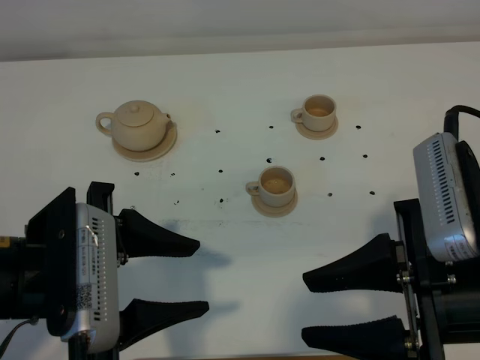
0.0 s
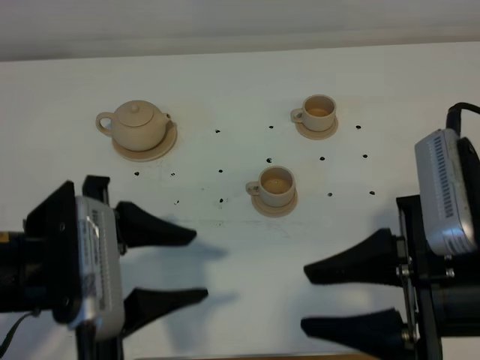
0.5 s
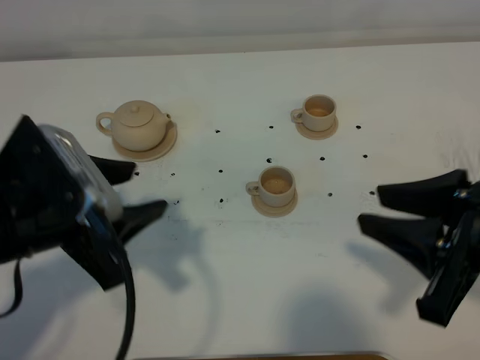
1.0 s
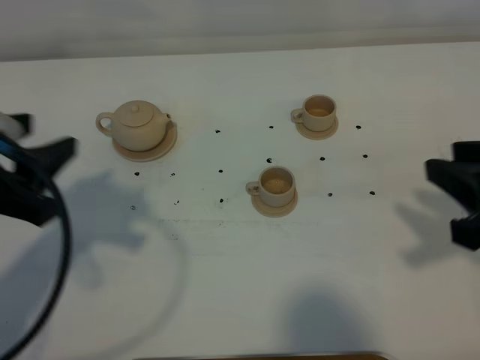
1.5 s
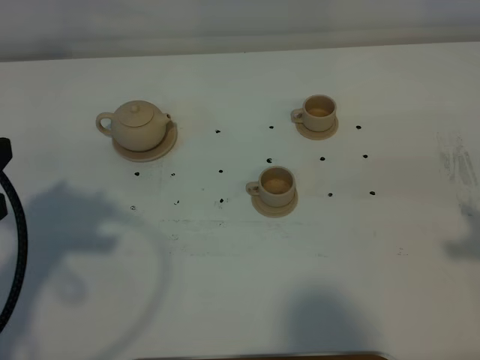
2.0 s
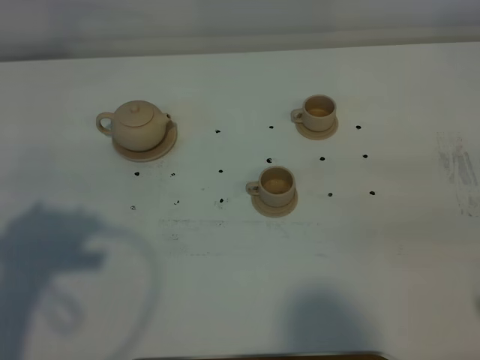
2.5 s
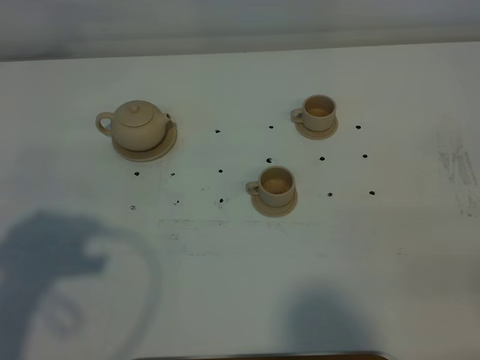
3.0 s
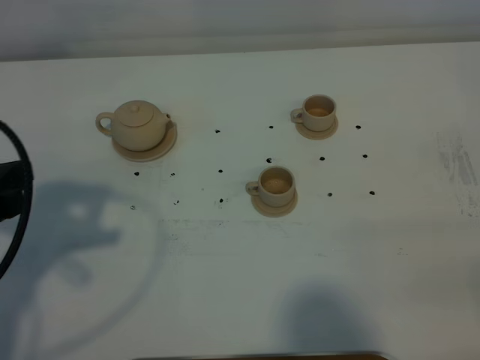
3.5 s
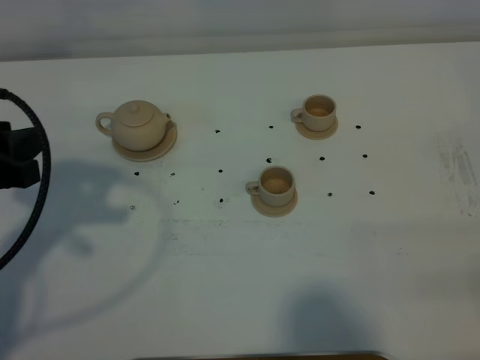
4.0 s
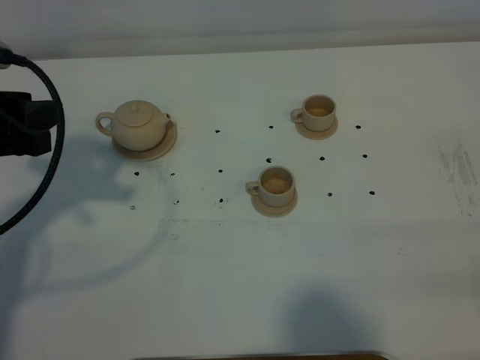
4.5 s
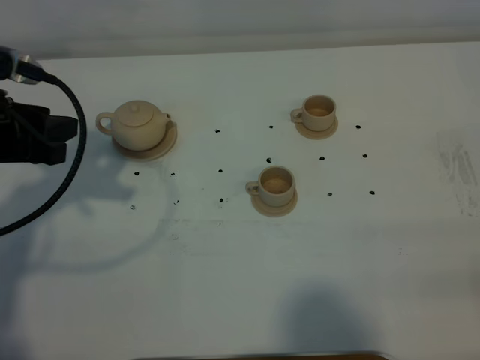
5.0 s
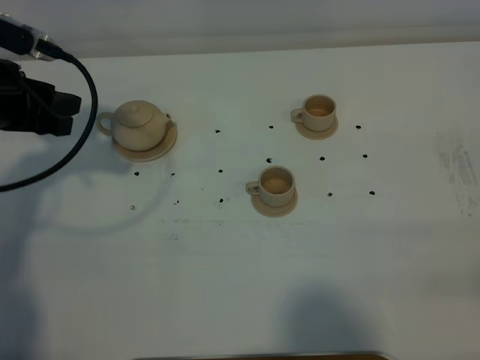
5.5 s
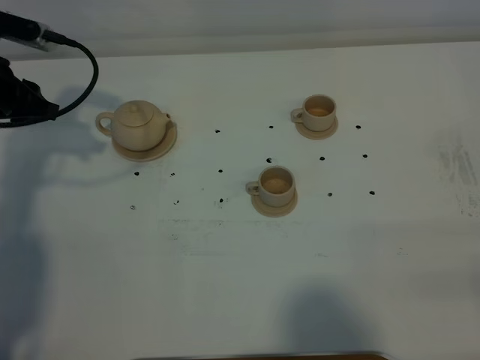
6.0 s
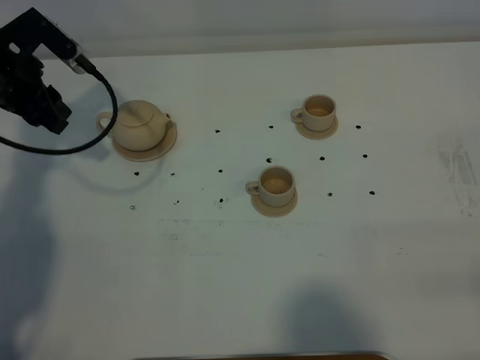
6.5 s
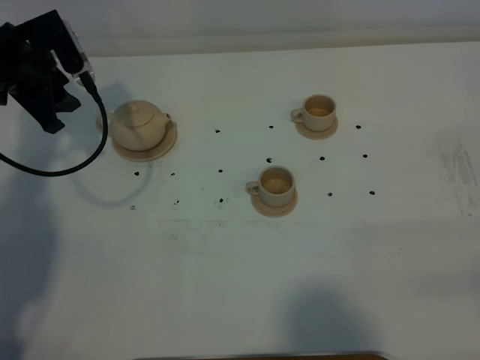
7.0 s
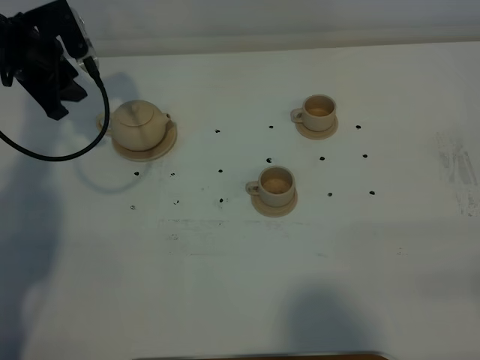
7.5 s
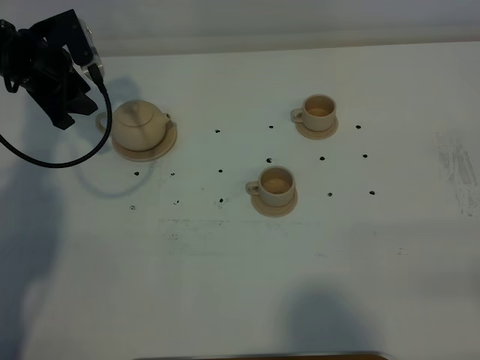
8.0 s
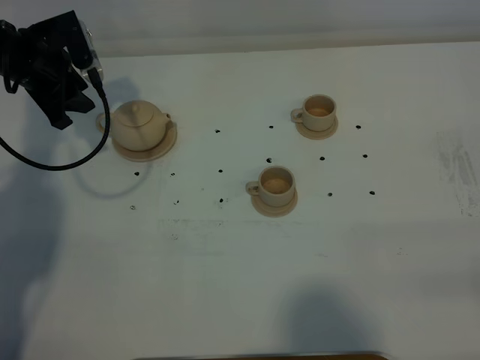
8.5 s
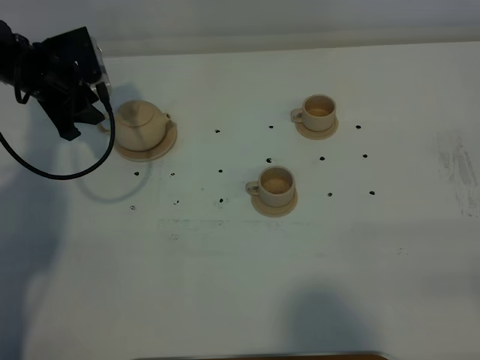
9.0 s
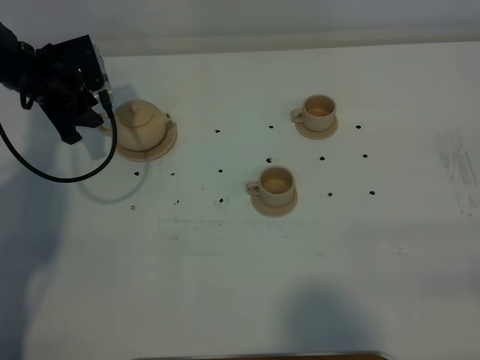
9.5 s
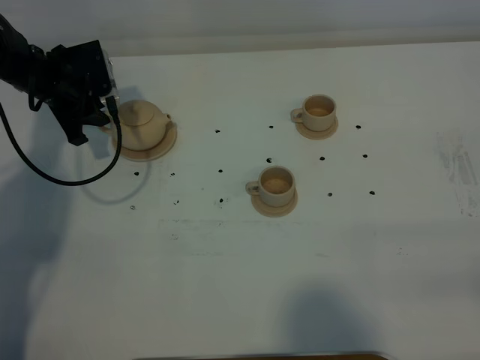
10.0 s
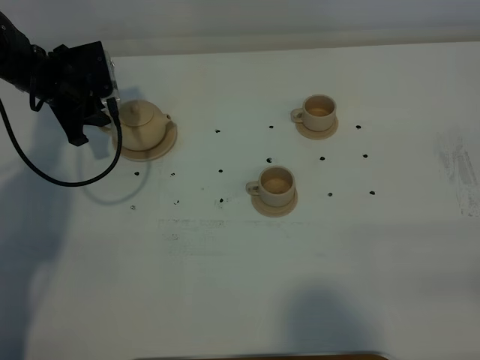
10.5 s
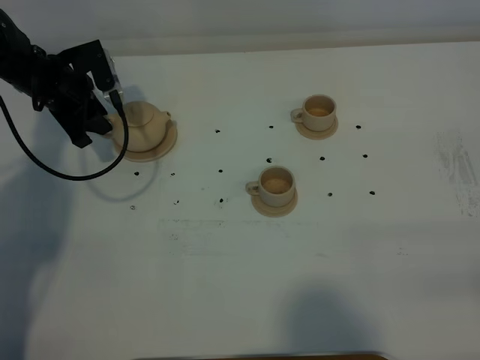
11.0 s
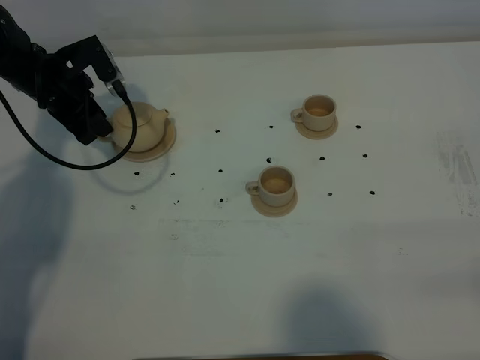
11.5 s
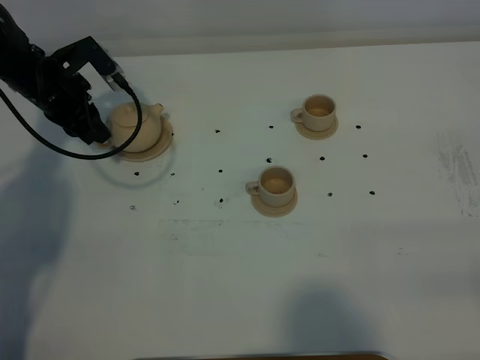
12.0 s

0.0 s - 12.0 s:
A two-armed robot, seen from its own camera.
Task of the whole recording: grasp the brown teapot and pour the tea into the two brown teacups one by one, put the brown teapot back in its original place.
0.0 s - 2.0 s: The right gripper is displaced to the right by some 10 cm; the left gripper shifts about 10 cm to the left.
2.0 s - 4.0 s: The left gripper travels forward by approximately 5 cm.
4.0 s - 6.0 s: The left gripper shifts approximately 20 cm forward.
6.0 s - 8.0 s: The left gripper is displaced forward by approximately 5 cm.
8.0 s - 10.0 s: The left gripper travels downward by approximately 5 cm.

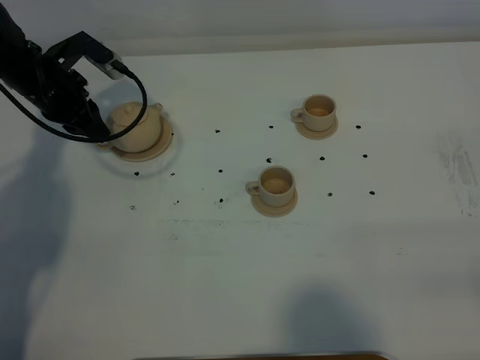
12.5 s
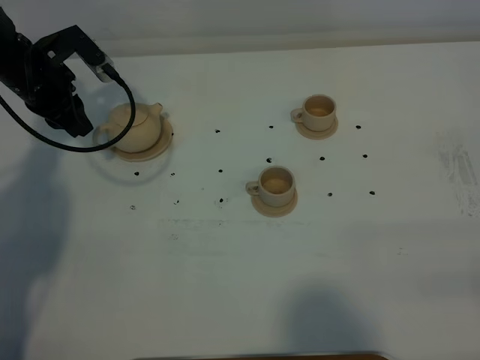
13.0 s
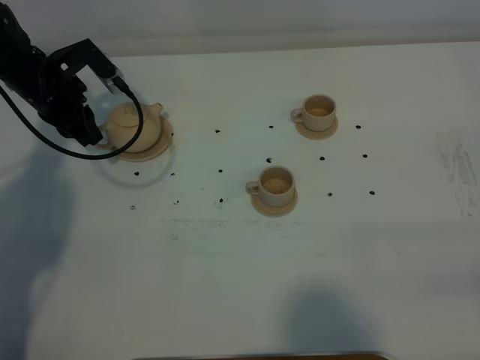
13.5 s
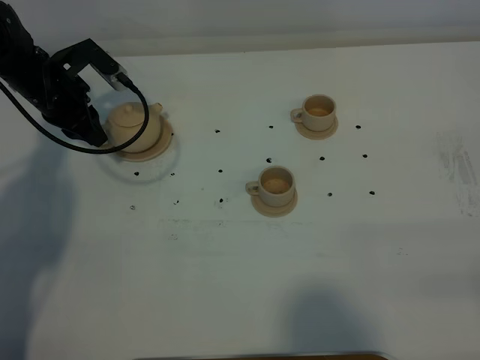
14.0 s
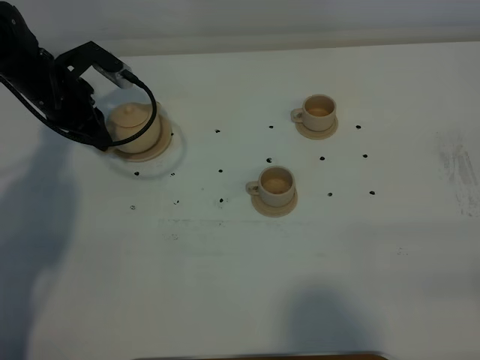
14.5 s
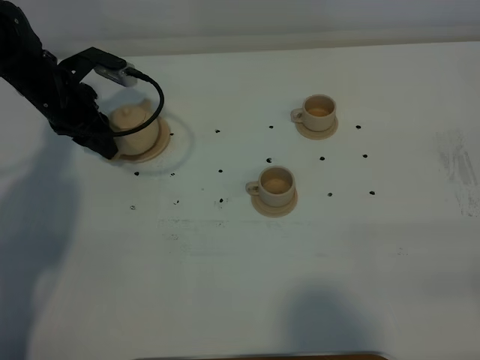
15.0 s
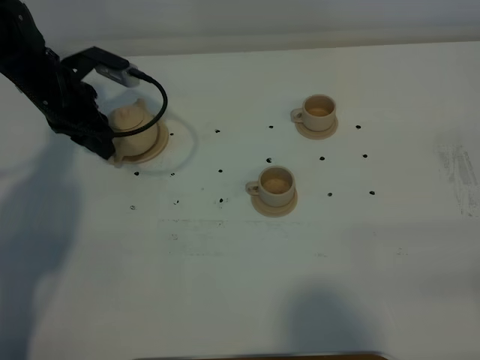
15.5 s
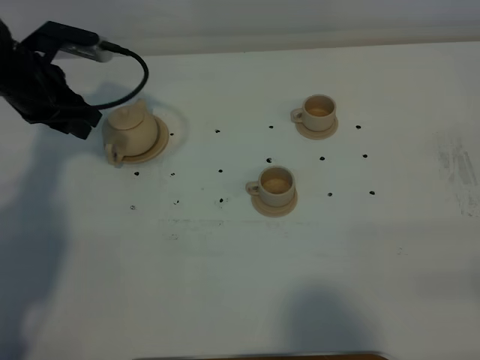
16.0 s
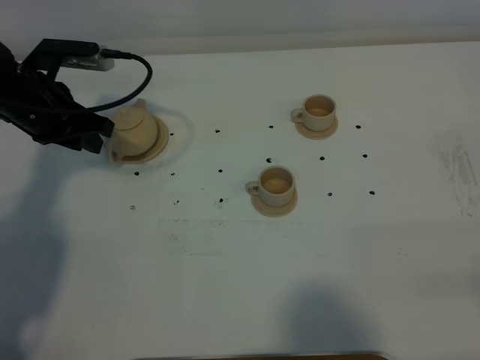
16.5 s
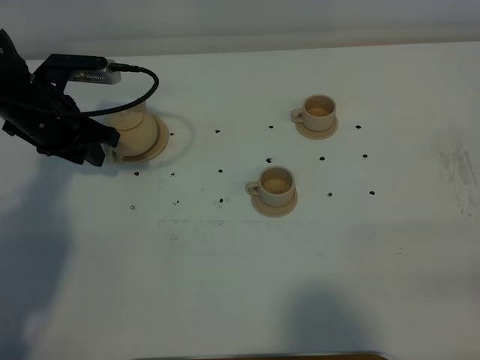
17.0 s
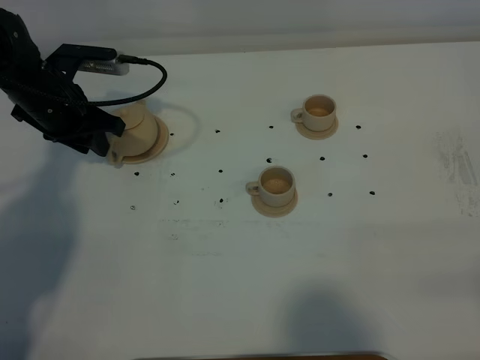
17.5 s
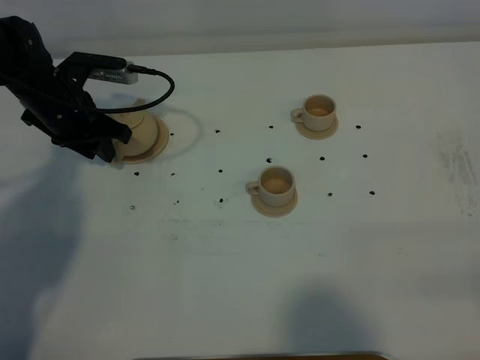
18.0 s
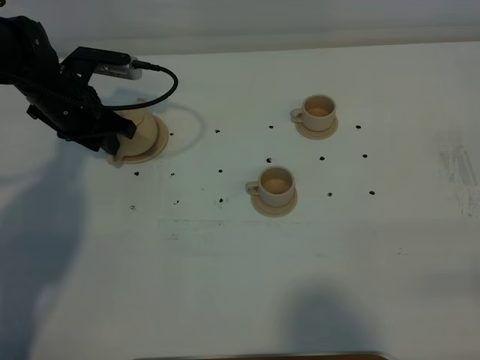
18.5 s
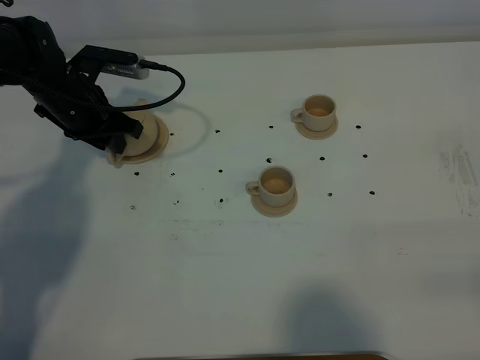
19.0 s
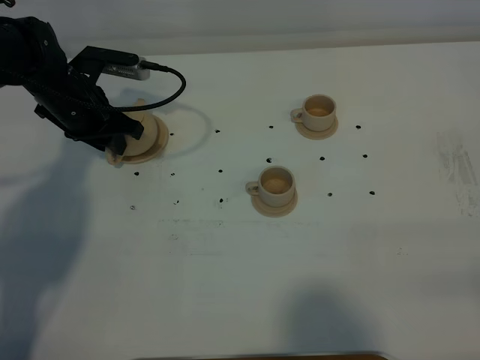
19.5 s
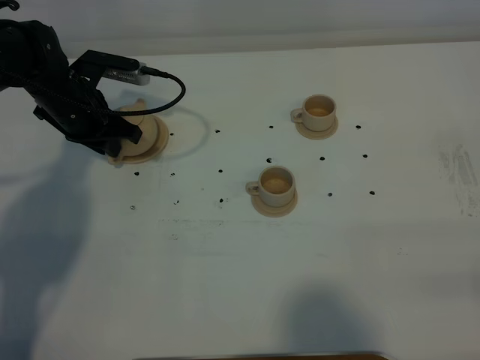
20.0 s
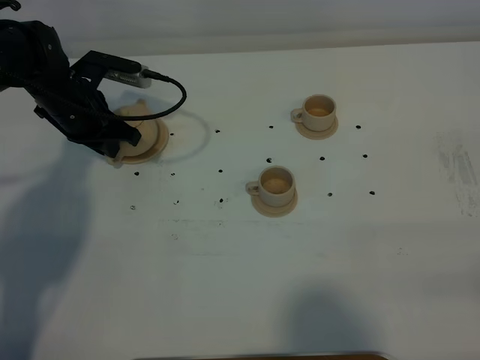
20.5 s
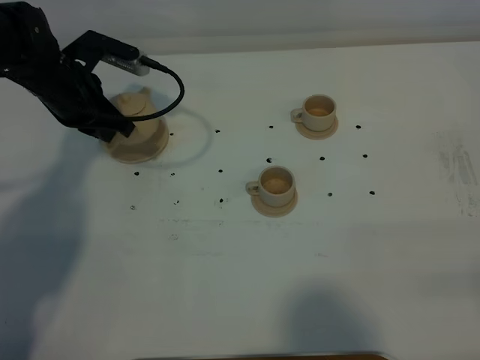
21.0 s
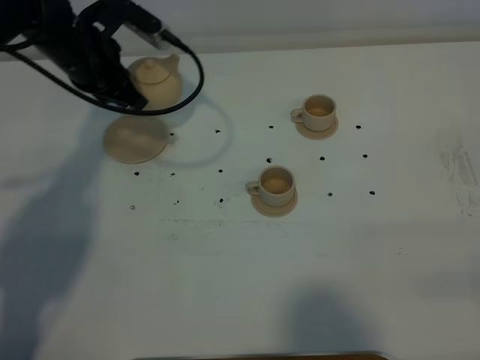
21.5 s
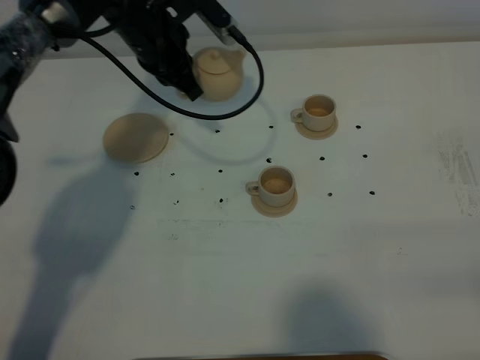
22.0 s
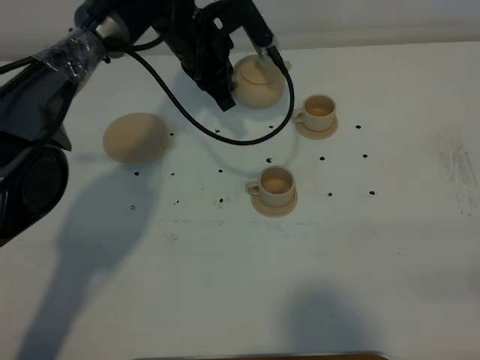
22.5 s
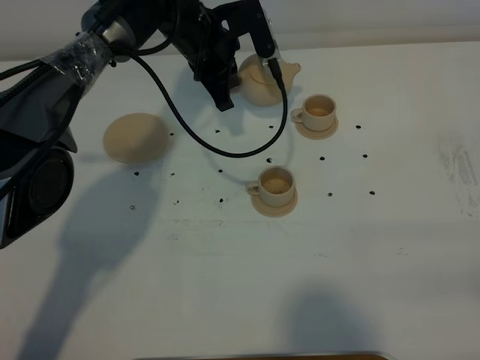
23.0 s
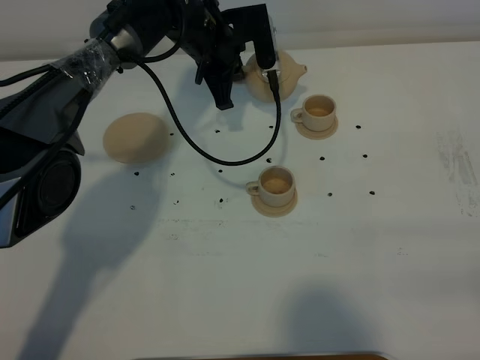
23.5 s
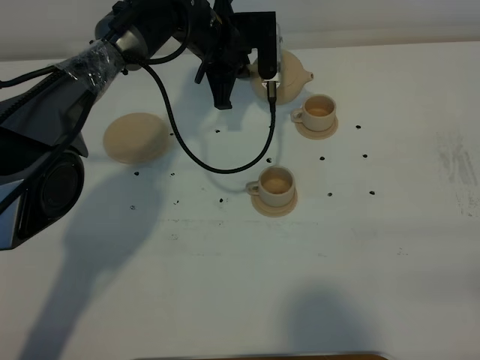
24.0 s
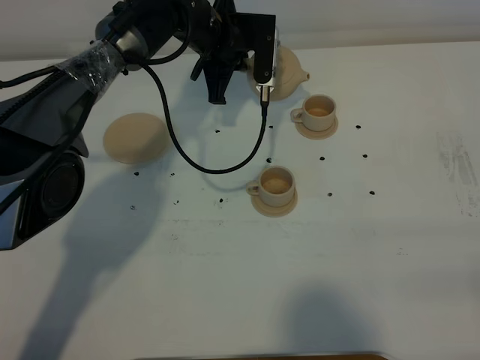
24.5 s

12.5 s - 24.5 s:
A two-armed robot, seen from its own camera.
Task of the whole recording: grasp the brown teapot and pour the tea into the two brown teacups one by one, put the brown teapot back in its original place.
Step, 12.5 s - 20.5 s: Pick up the teapot with the left gripper.
12.5 s - 14.5 s: There are only small adjustments of the grippers.
14.5 s - 16.5 s: The left gripper heads backward, covering roughly 5 cm.
16.5 s - 18.5 s: The left gripper moves some 5 cm.
18.5 s - 20.5 s: The left gripper closes.
20.5 s - 22.5 s: The left gripper is displaced to the right by some 15 cm.

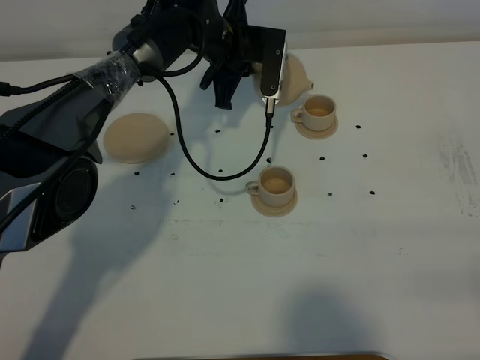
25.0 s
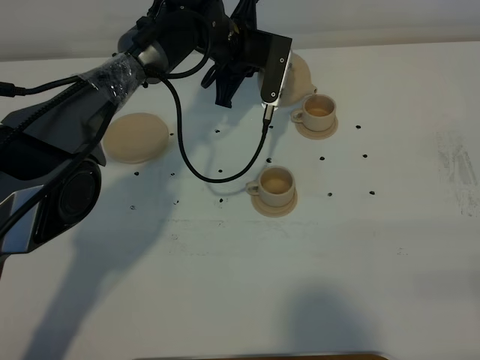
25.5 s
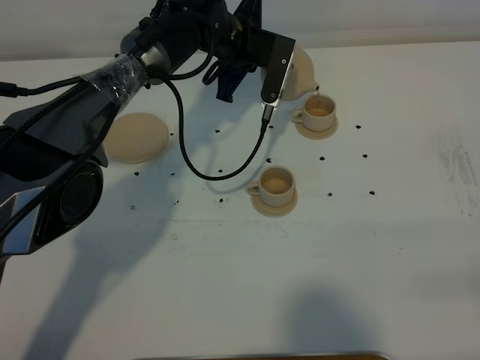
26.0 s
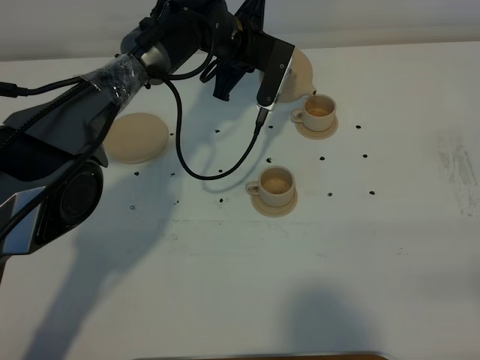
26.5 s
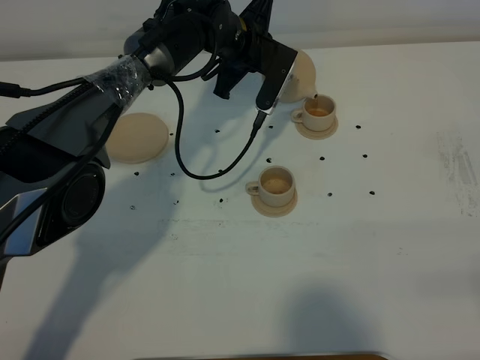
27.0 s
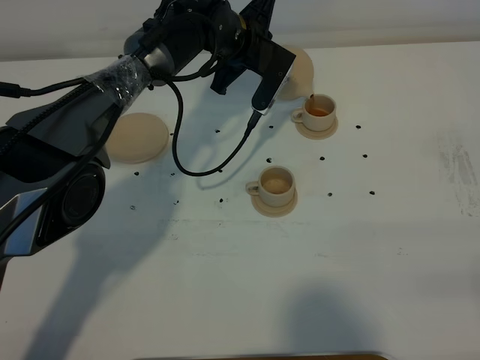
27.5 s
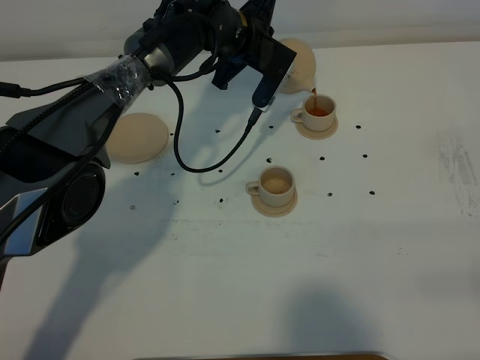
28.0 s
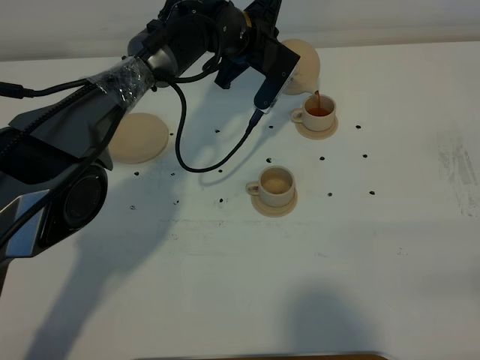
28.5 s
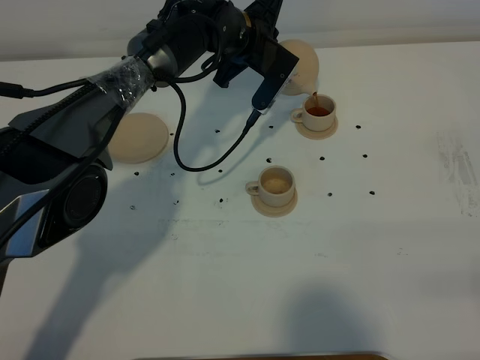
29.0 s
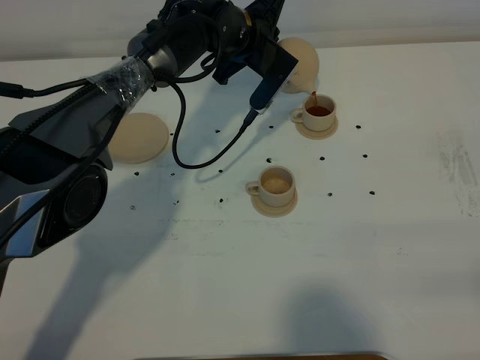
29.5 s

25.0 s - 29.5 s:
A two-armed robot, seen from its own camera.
Task of the whole recording: grasp the brown teapot and pour the tea into the two brown teacups one by one, put the brown teapot back in its original place.
27.0 s - 29.5 s: There are only small adjustments of the grippers.
